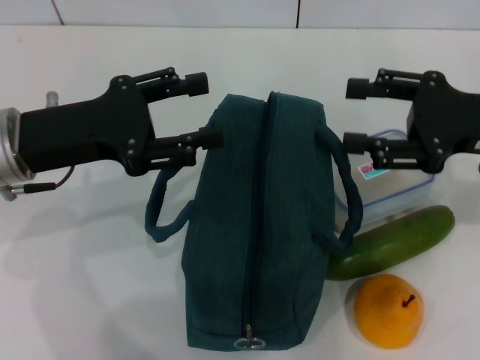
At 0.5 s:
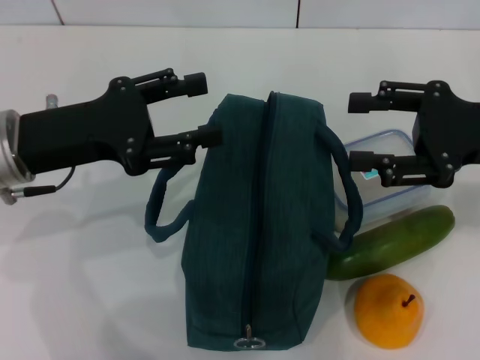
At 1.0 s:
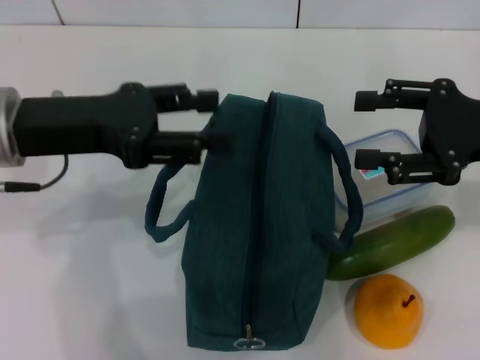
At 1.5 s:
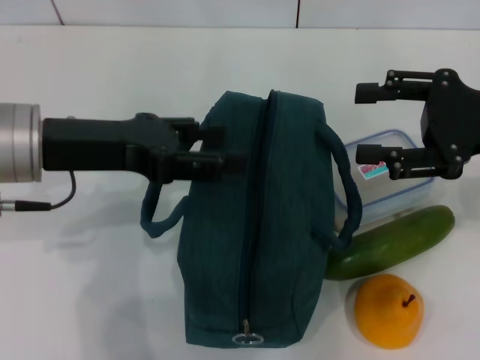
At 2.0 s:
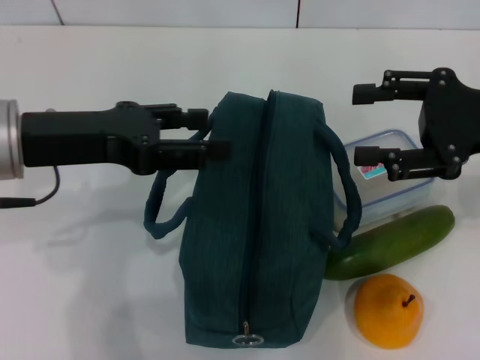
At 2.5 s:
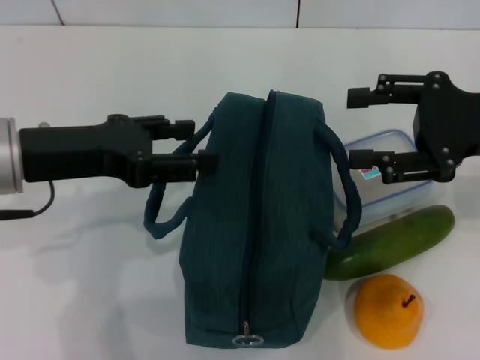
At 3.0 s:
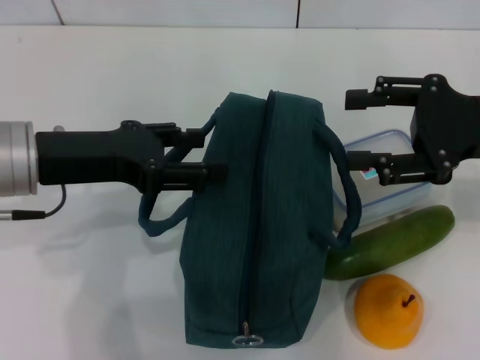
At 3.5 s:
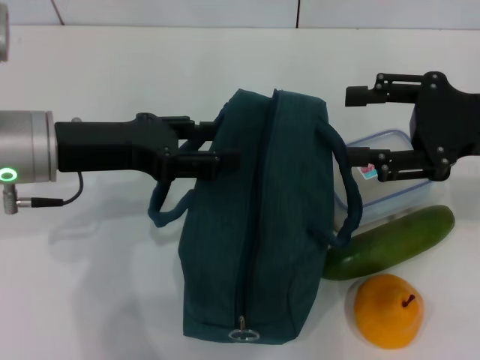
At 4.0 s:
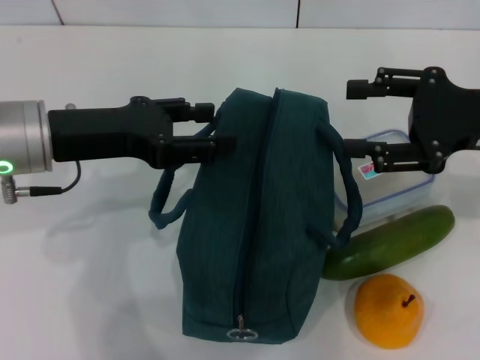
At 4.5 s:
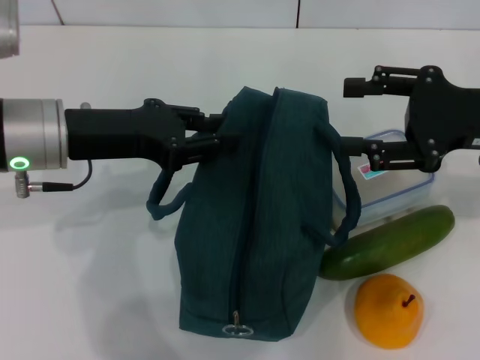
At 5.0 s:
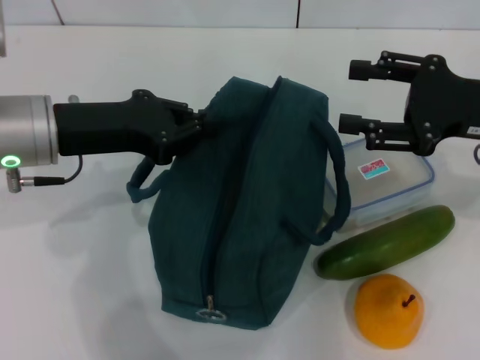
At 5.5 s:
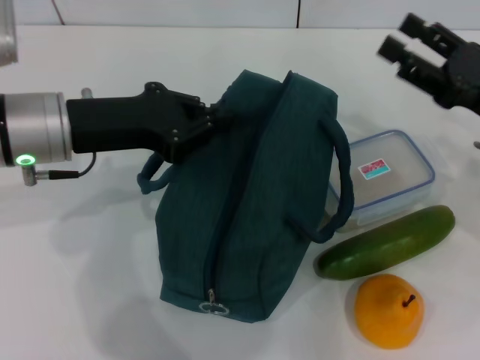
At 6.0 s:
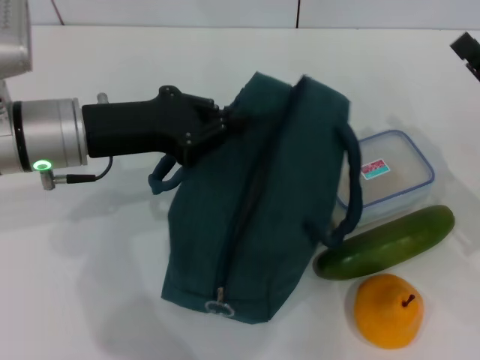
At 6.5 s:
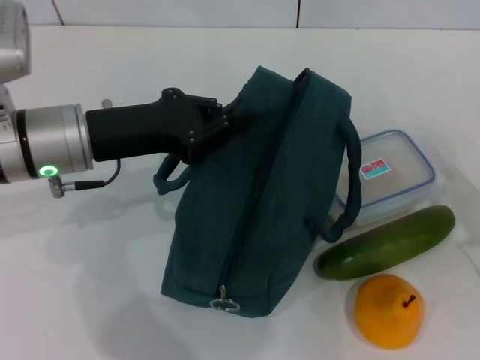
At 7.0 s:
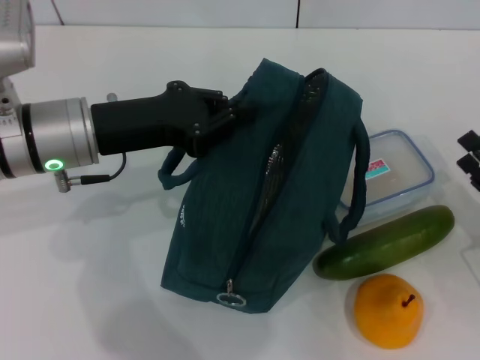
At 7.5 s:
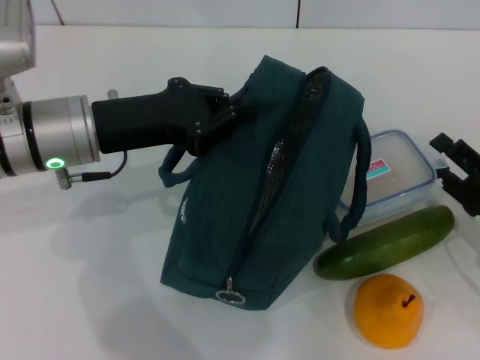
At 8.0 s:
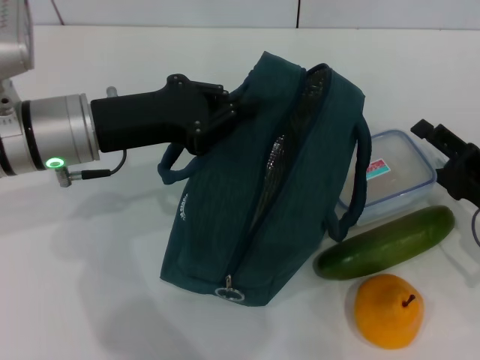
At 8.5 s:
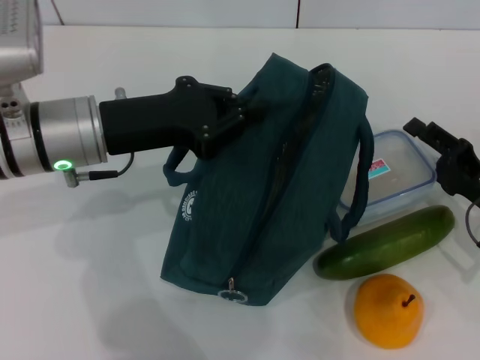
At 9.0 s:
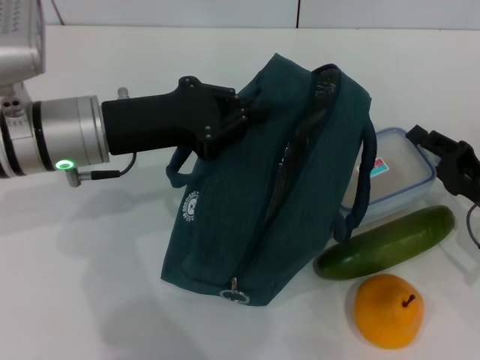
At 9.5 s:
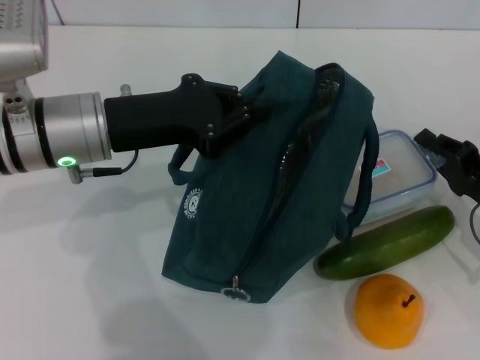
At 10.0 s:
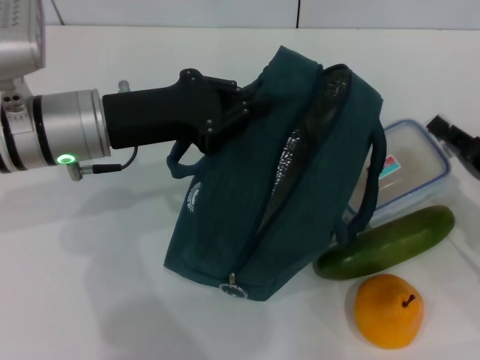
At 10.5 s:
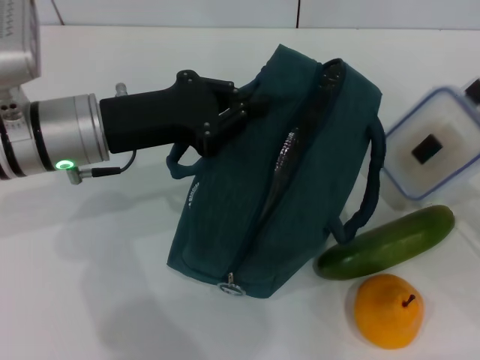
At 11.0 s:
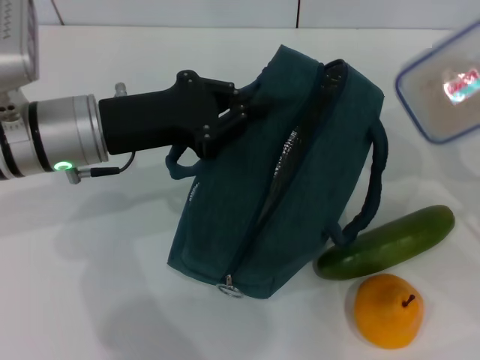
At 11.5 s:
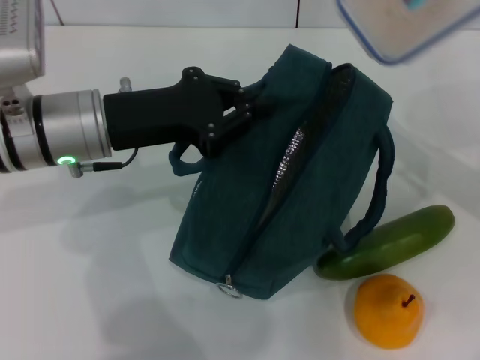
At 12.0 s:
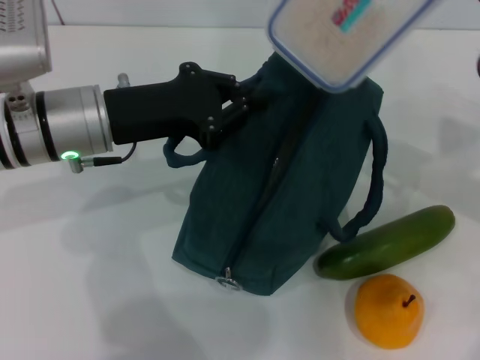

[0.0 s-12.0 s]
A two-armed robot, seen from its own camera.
Step, 0.0 to 5.5 s: Hold the lunch bag with your left hand.
Step, 6.0 to 9.0 s: Pick up the lunch box with your right hand.
2.0 to 4.0 s: The grippers move only a little.
4.0 to 6.0 s: The left gripper closes its fingers. The right gripper moves downward, some 10 cm.
6.0 to 8.0 s: The right gripper is displaced downward by some 5 cm.
8.0 to 10.0 s: The right gripper closes.
10.0 to 12.0 s: The right gripper shifts roughly 15 cm upward, forward and to the left.

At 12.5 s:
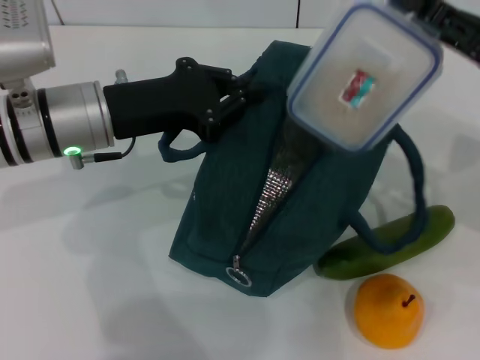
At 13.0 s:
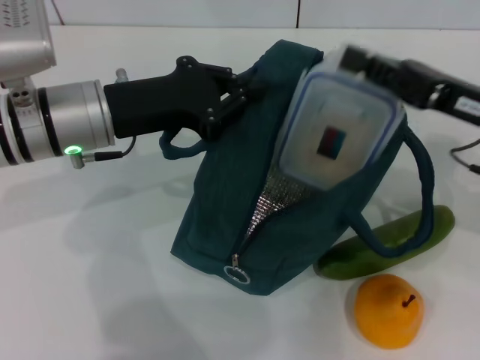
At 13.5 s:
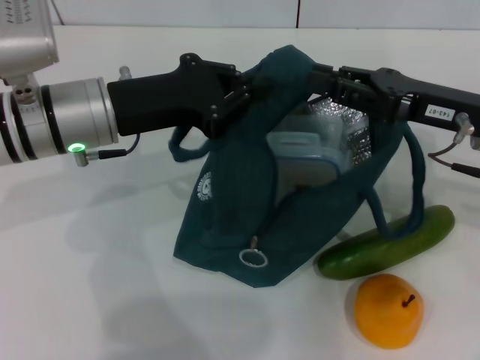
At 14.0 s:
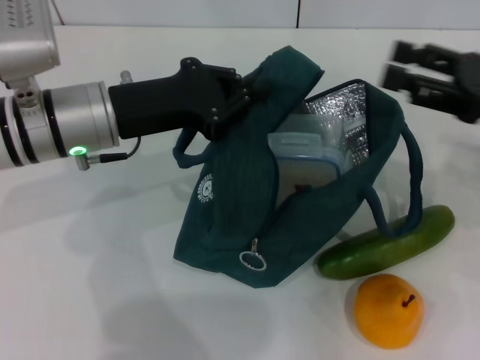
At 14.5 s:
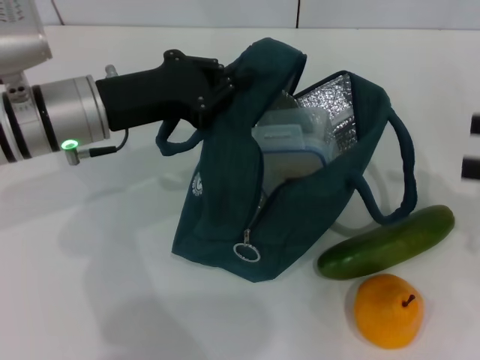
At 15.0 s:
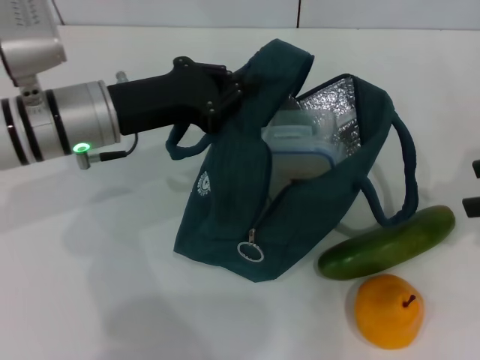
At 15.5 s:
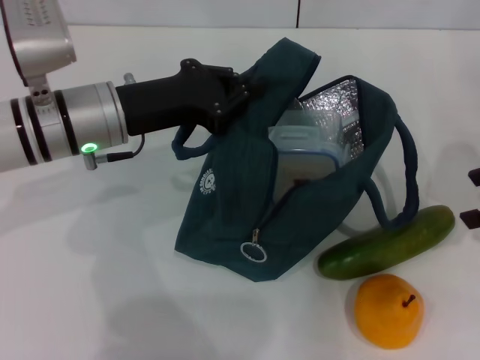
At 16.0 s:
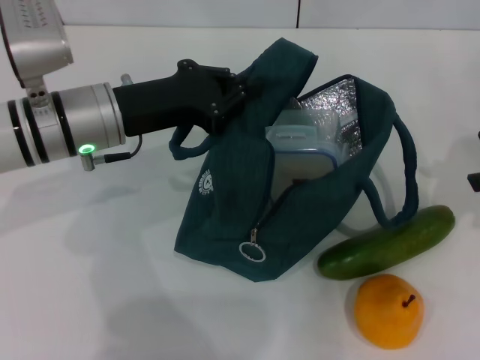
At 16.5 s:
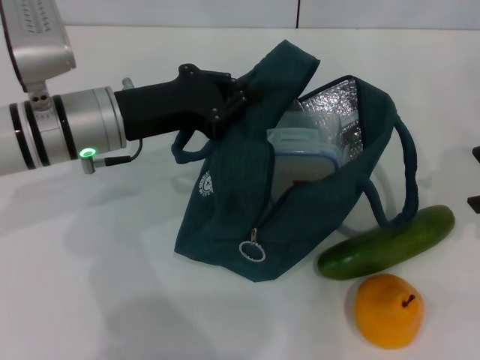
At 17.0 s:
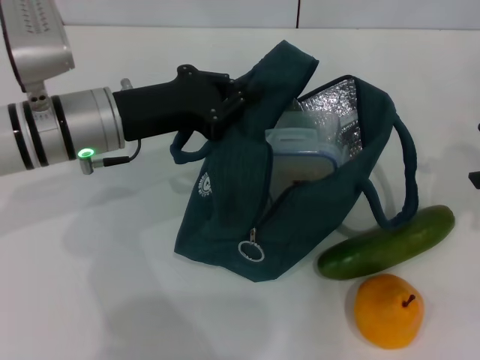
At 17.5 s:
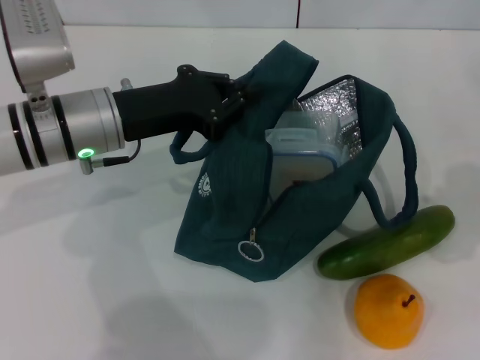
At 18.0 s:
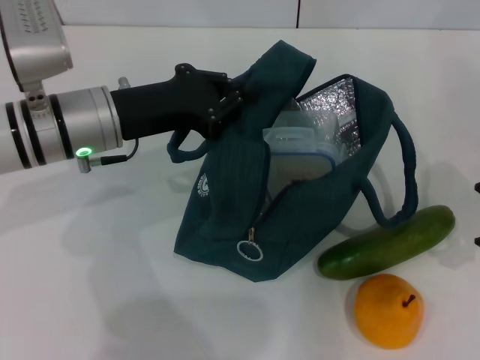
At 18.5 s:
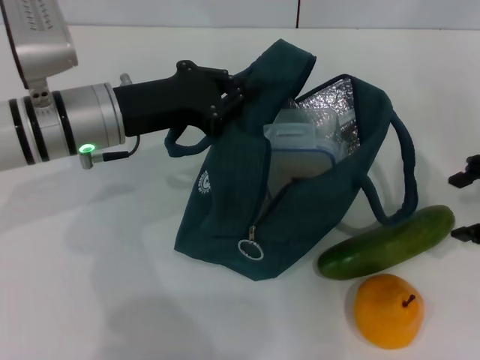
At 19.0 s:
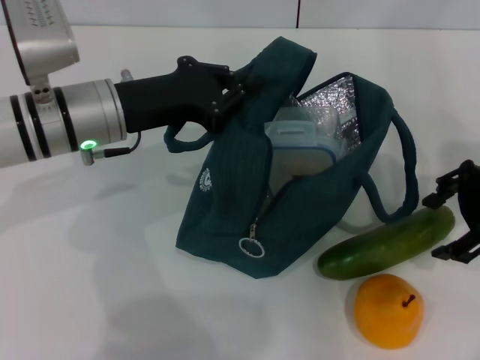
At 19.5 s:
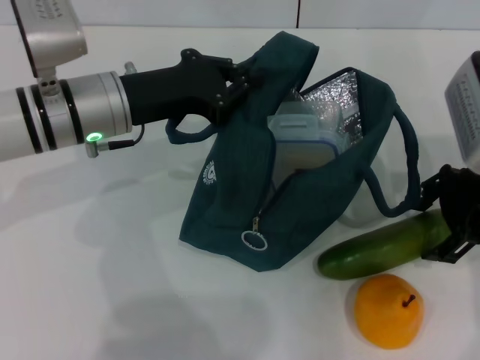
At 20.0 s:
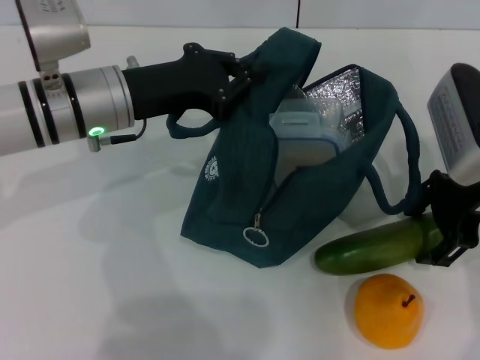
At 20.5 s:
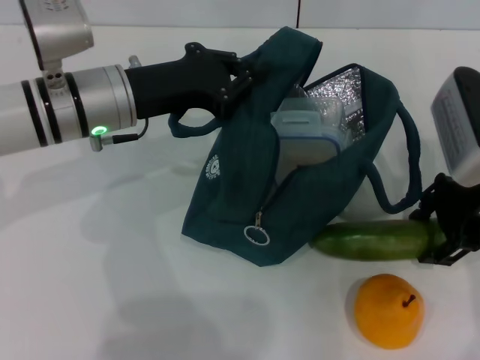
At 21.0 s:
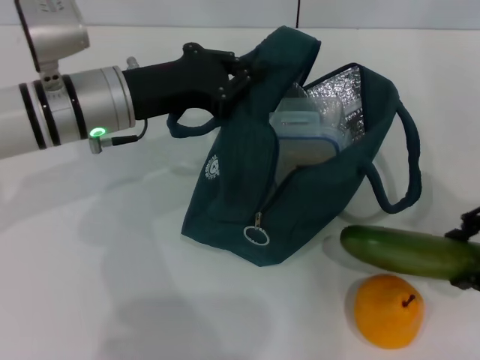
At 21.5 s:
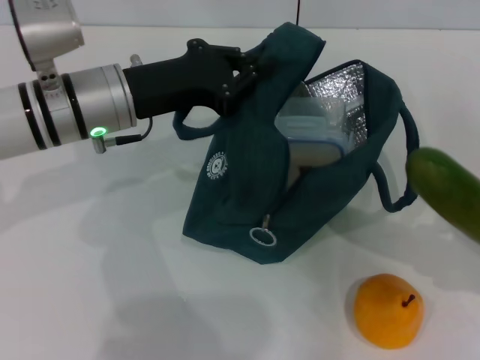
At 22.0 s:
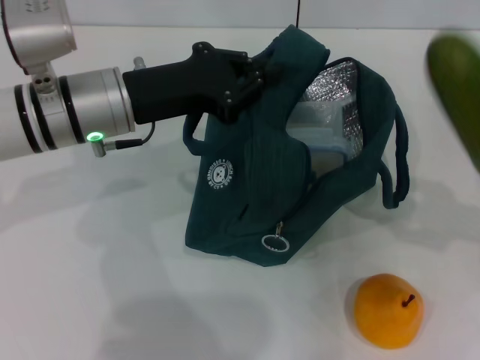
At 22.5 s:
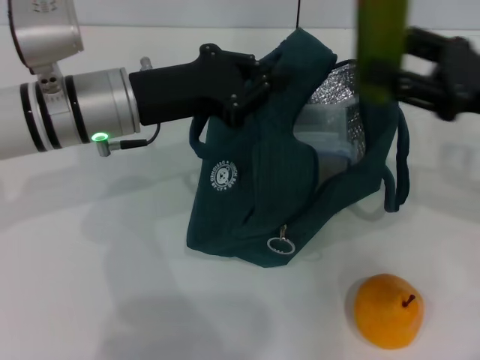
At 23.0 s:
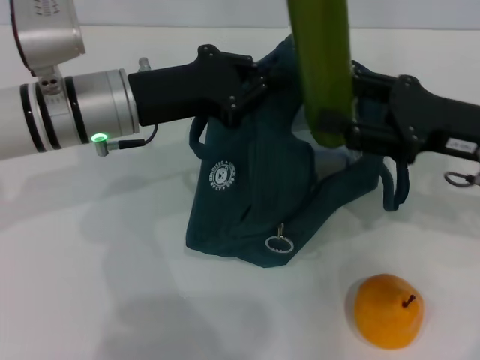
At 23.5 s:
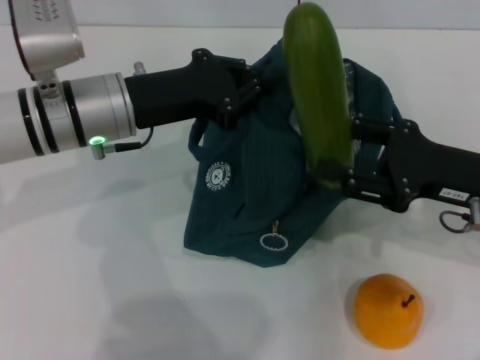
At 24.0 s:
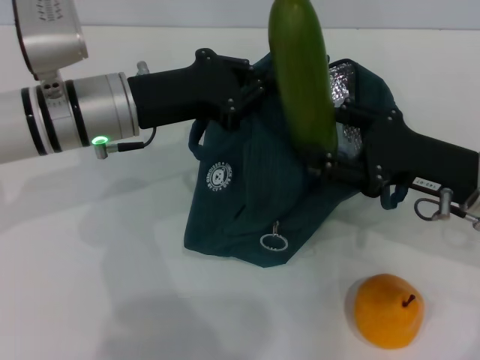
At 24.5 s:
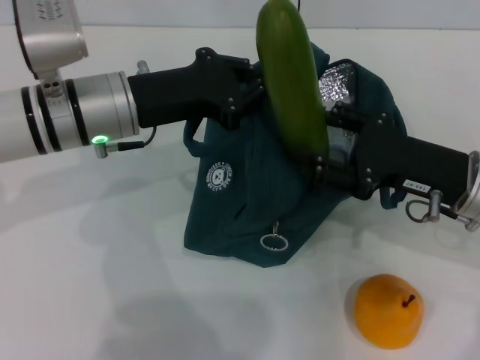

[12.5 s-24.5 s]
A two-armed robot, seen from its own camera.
Step, 14.0 to 20.0 s: Pick up the cucumber with your right hand.
12.5 to 14.5 s: The right gripper travels to the right and backward by approximately 10 cm, and opens its fingers.
16.5 to 18.5 s: The right gripper ends up roughly 5 cm from where it was.
18.5 to 20.5 s: The right gripper goes about 5 cm to the left.
20.5 to 22.5 s: The right gripper reaches some 15 cm to the right, then returns.
22.5 to 24.5 s: The right gripper travels downward and to the left by approximately 10 cm.

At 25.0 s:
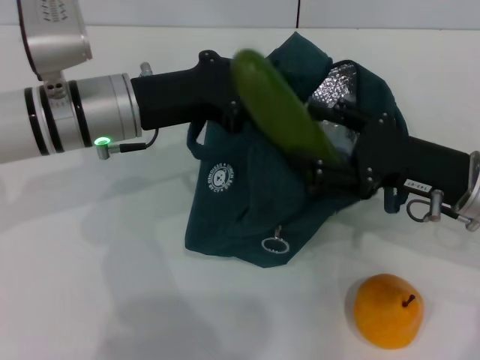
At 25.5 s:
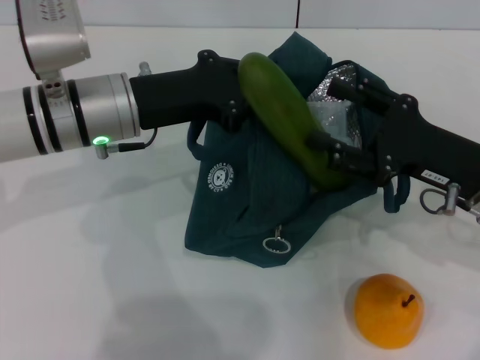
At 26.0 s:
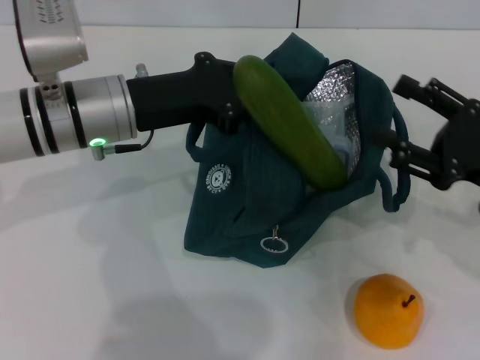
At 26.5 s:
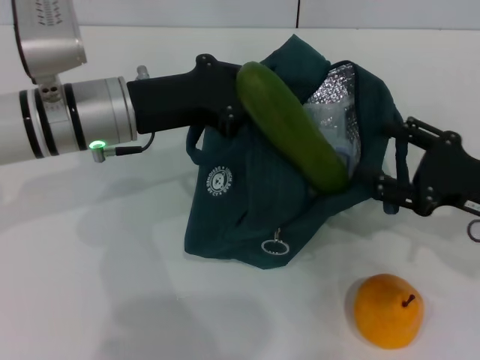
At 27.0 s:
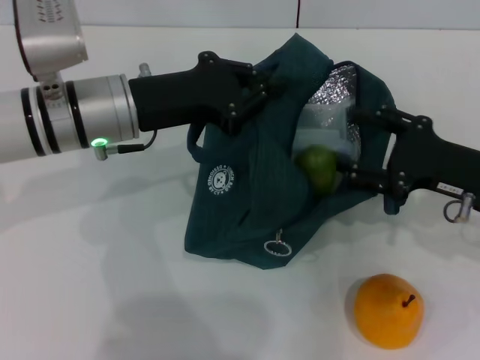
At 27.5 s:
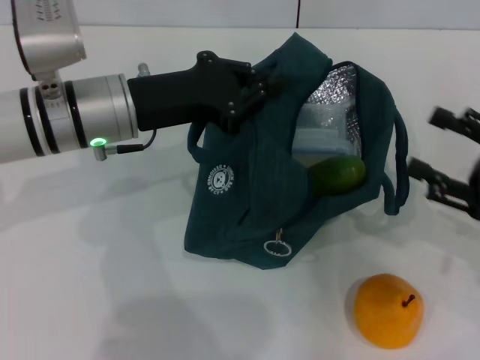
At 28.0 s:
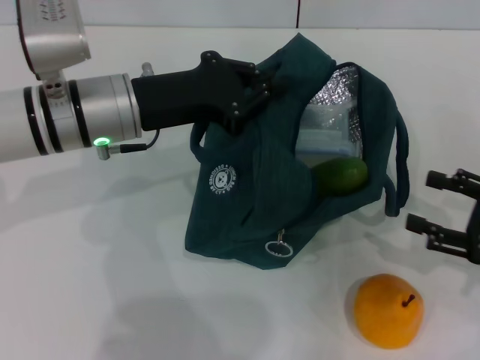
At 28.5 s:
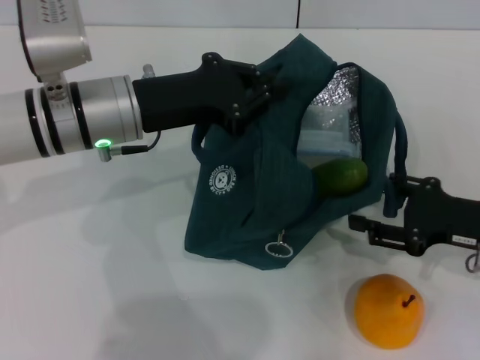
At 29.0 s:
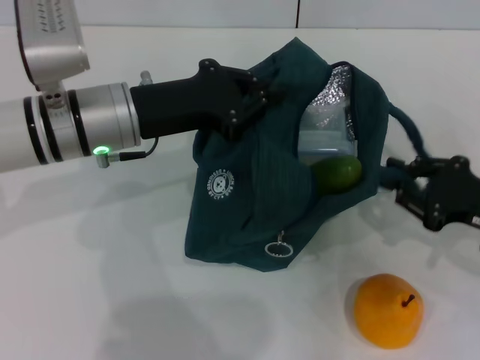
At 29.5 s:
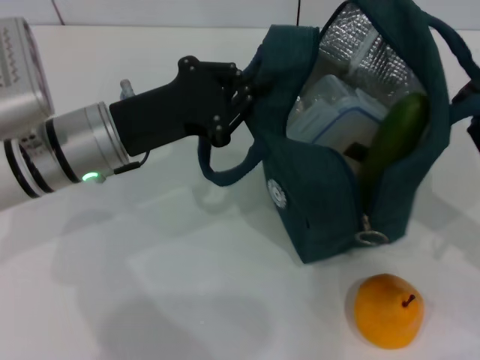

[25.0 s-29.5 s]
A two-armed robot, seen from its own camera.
Step, 25.0 to 28.0 s: Put the cucumber into the lunch bag with your right hand.
27.0 to 29.5 s: The right gripper travels backward and to the right by roughly 5 cm, and closes up.
